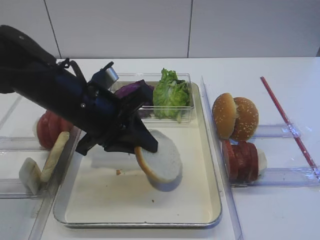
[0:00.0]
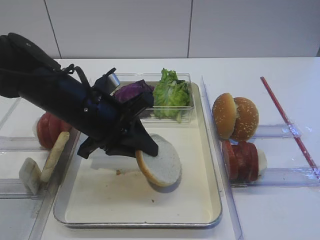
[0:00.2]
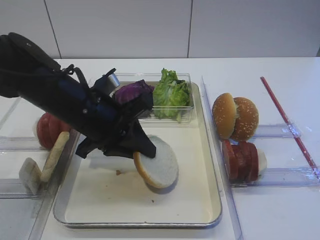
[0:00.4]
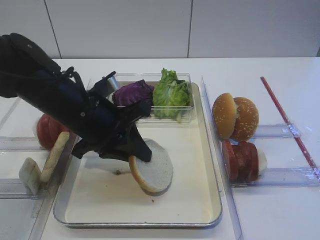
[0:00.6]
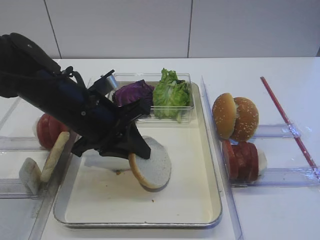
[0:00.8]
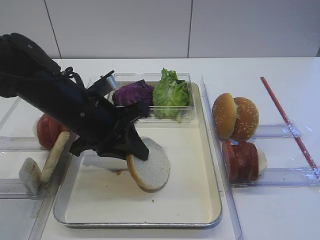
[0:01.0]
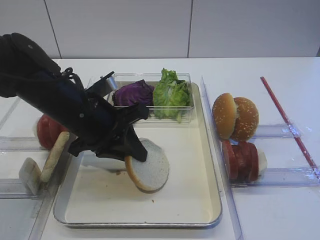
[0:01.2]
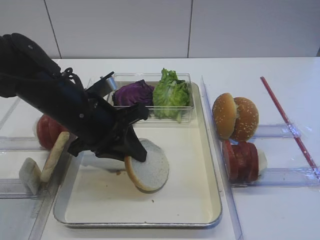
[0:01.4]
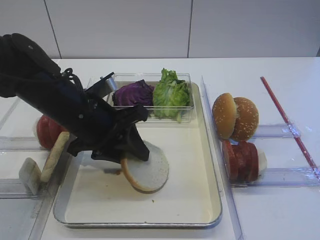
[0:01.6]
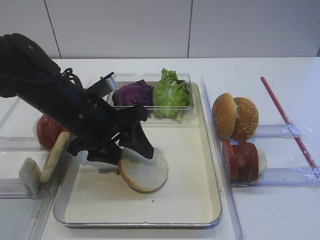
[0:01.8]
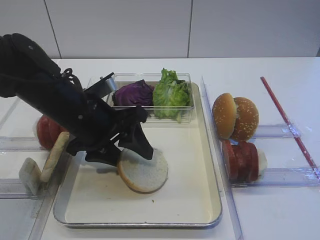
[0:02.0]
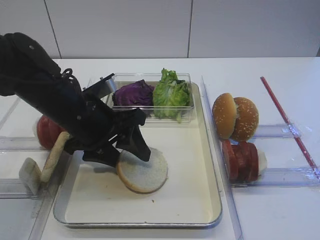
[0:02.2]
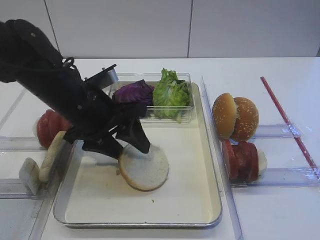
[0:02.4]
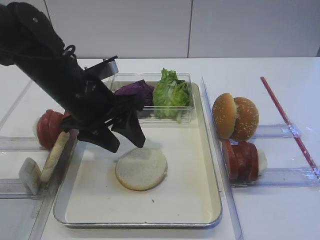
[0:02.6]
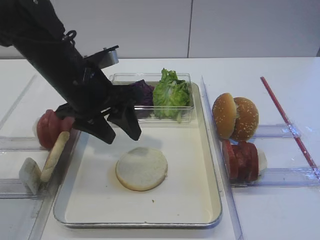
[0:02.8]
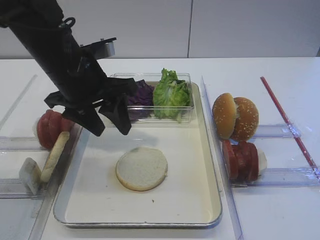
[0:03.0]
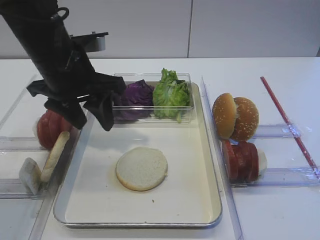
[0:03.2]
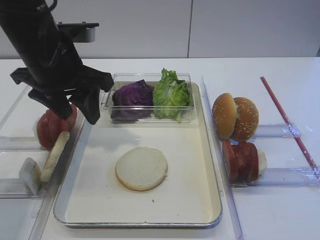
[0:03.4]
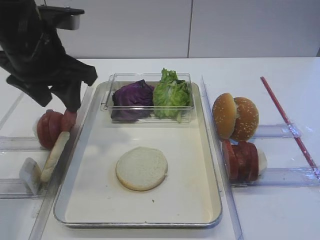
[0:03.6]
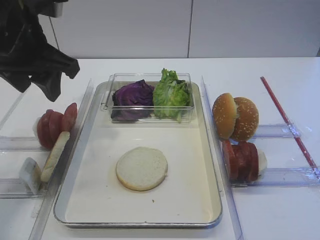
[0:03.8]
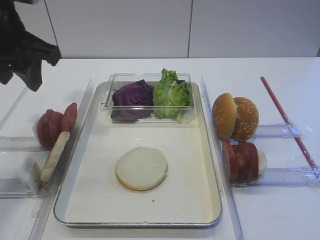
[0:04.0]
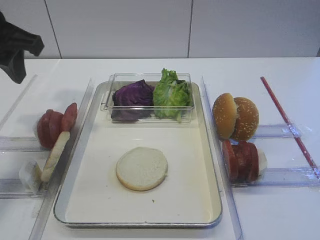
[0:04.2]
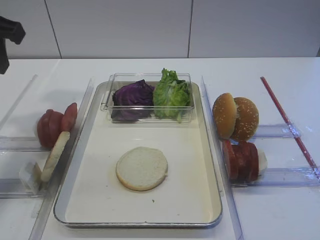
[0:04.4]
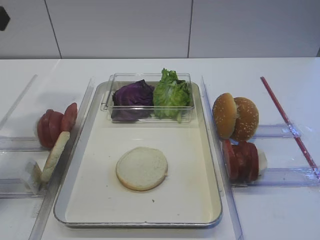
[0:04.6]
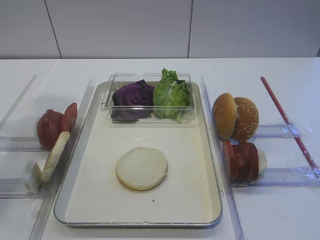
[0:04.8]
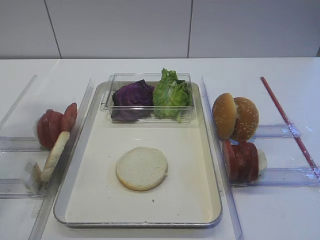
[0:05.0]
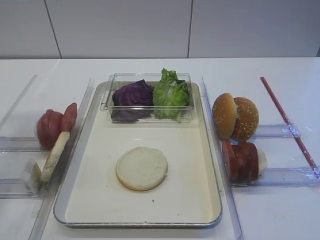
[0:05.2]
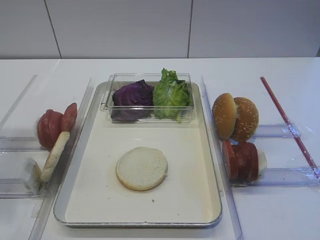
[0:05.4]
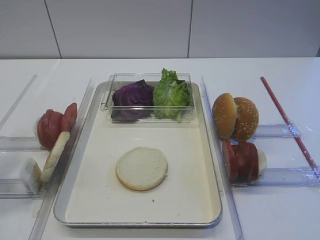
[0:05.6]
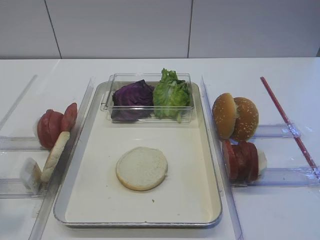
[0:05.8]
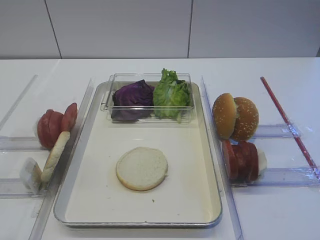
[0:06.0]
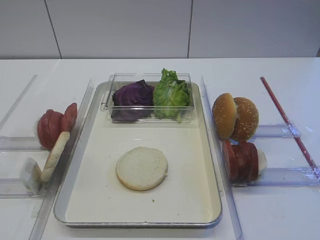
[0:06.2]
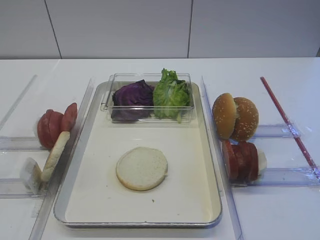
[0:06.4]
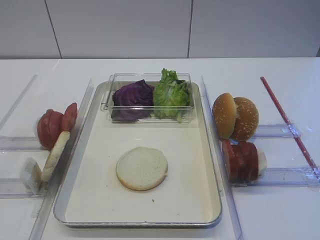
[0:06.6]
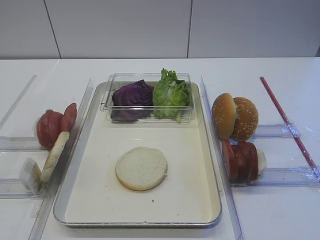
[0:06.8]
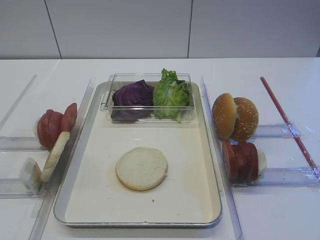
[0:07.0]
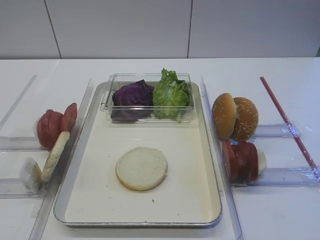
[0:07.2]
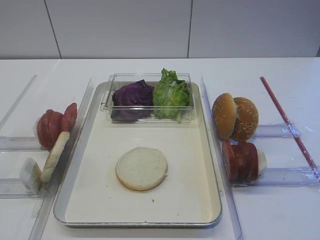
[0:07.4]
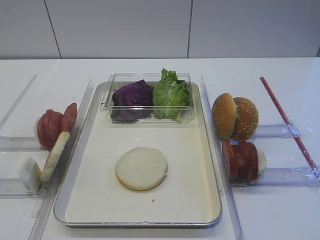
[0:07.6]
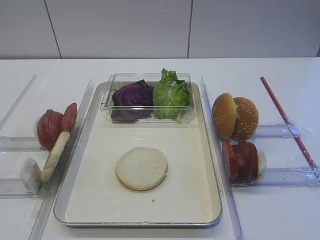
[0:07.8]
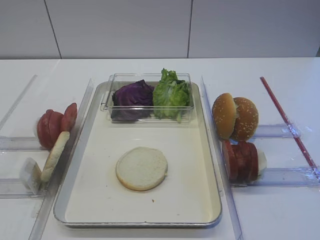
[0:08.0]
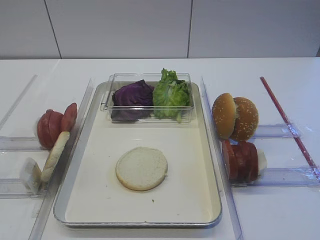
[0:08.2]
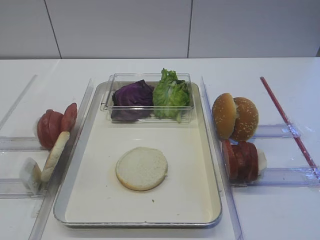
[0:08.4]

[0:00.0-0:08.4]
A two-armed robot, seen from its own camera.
Step, 0:00.0 to 0:02.8: Place the bread slice on the tray with the left gripper.
0:00.0 to 0:01.4: The grippers make only small movements.
0:01.4 to 0:02.8: The left gripper opens up.
0:02.8 to 0:04.2: The left gripper goes approximately 15 cm upward and to the left.
0:04.2 to 0:05.6: The left gripper travels backward by roughly 20 cm.
0:05.6 to 0:07.0: The left gripper moves downward and backward, roughly 15 cm.
0:07.0 to 0:08.4: Both grippers stay put.

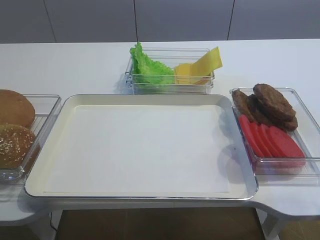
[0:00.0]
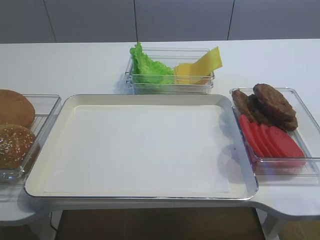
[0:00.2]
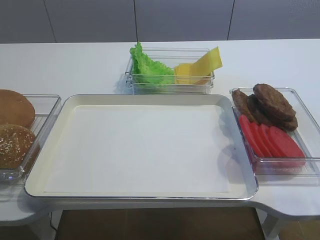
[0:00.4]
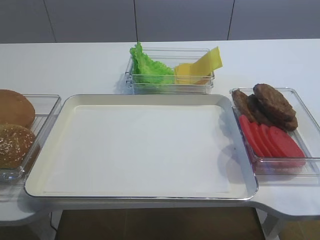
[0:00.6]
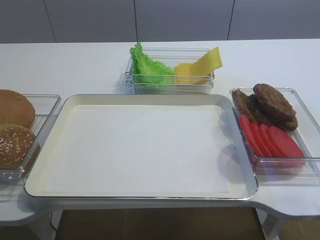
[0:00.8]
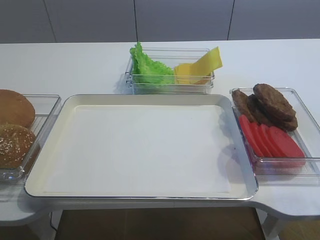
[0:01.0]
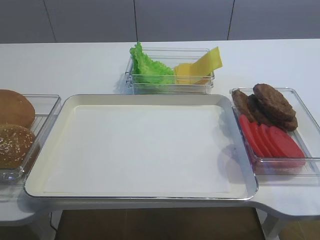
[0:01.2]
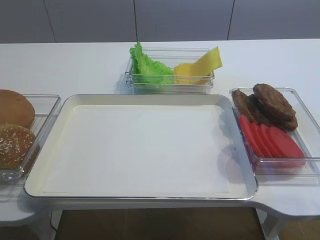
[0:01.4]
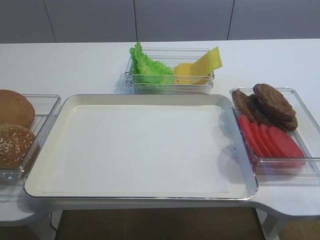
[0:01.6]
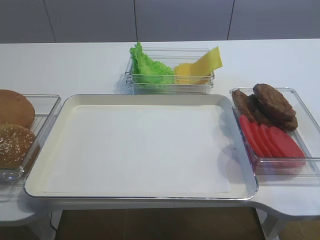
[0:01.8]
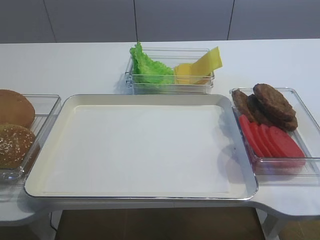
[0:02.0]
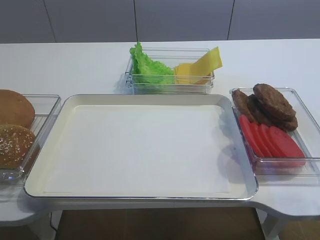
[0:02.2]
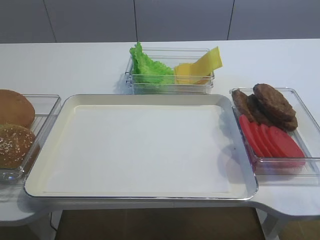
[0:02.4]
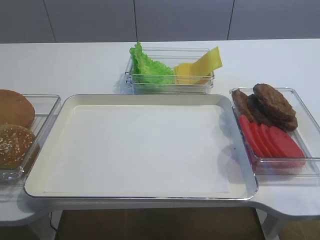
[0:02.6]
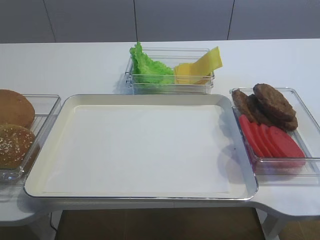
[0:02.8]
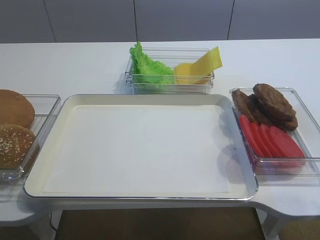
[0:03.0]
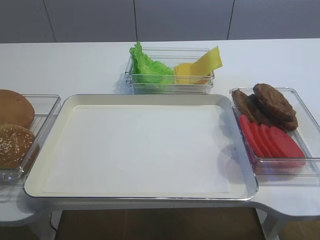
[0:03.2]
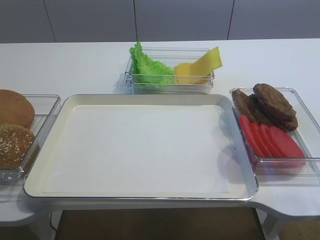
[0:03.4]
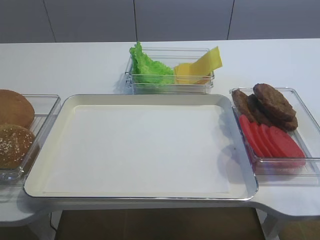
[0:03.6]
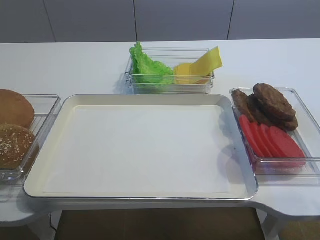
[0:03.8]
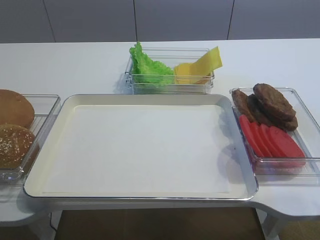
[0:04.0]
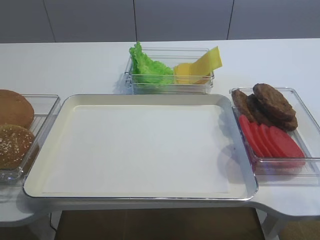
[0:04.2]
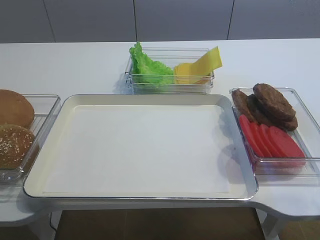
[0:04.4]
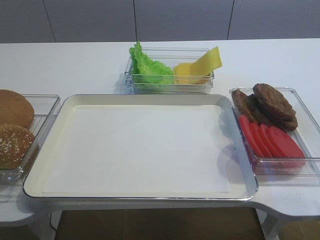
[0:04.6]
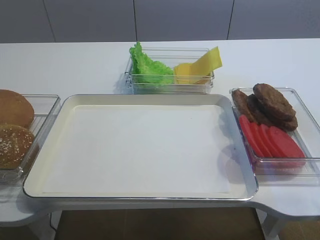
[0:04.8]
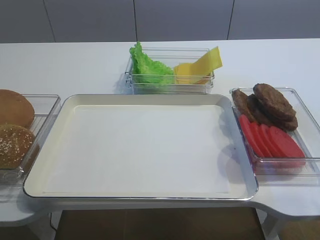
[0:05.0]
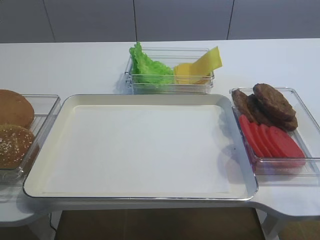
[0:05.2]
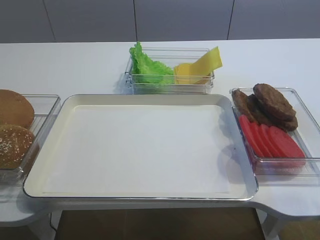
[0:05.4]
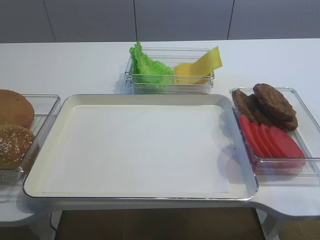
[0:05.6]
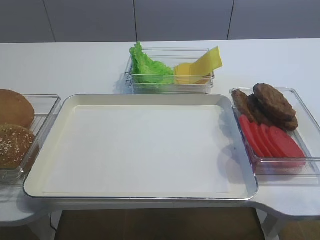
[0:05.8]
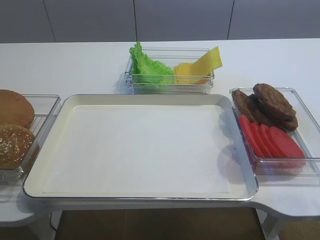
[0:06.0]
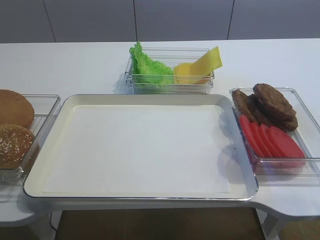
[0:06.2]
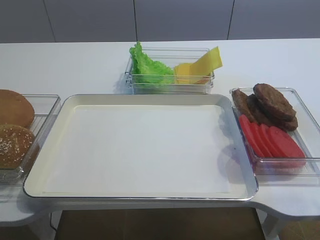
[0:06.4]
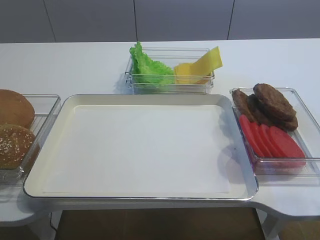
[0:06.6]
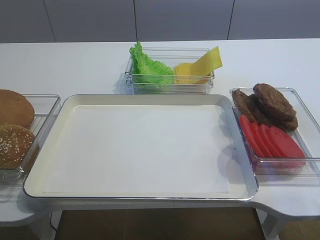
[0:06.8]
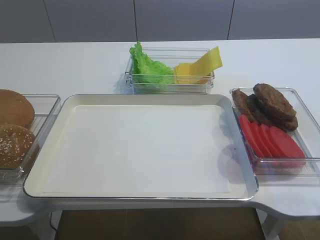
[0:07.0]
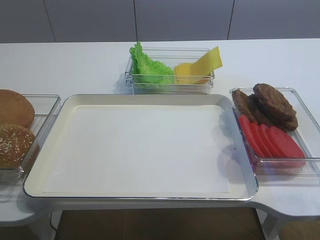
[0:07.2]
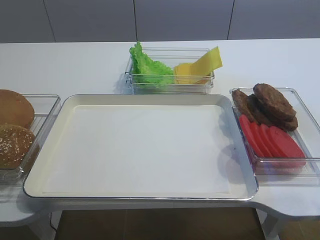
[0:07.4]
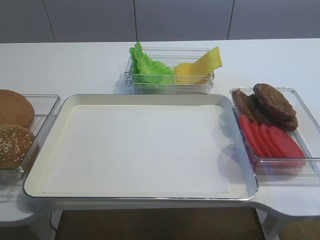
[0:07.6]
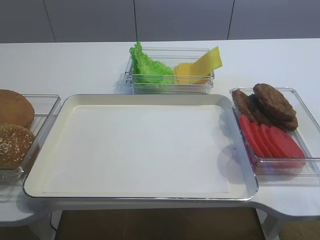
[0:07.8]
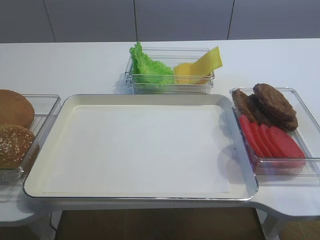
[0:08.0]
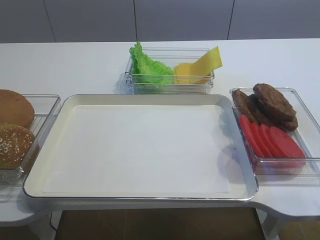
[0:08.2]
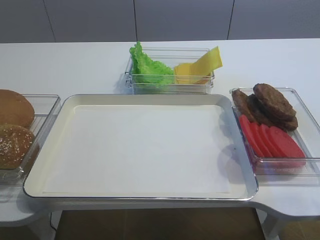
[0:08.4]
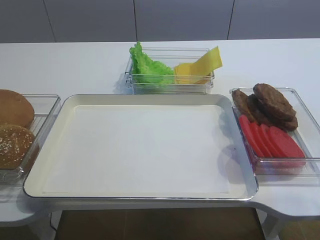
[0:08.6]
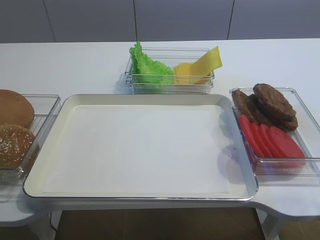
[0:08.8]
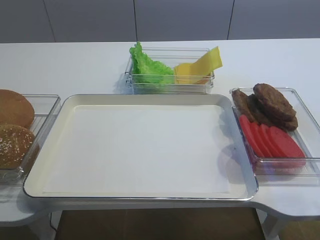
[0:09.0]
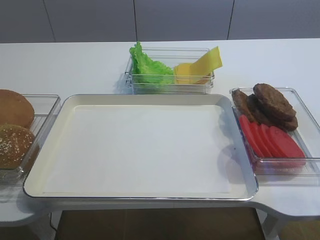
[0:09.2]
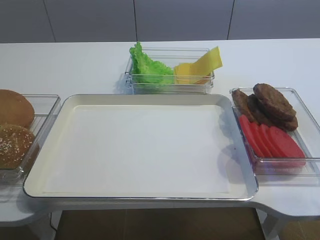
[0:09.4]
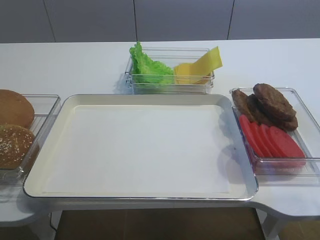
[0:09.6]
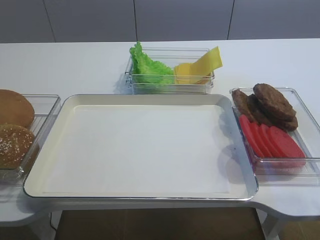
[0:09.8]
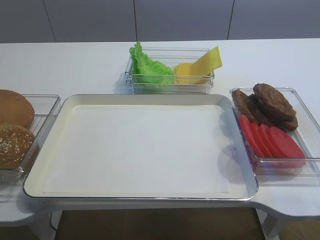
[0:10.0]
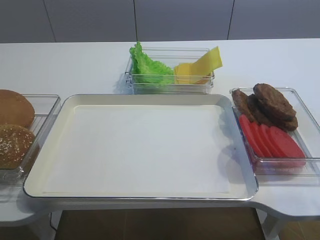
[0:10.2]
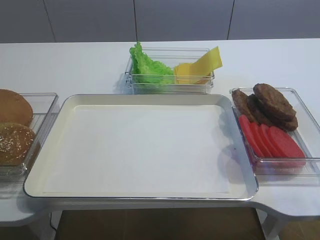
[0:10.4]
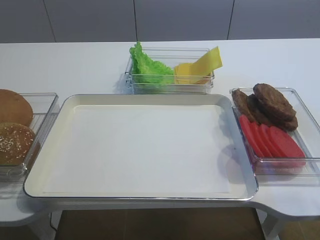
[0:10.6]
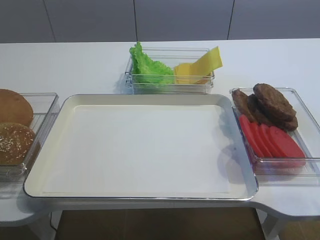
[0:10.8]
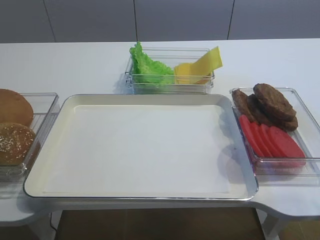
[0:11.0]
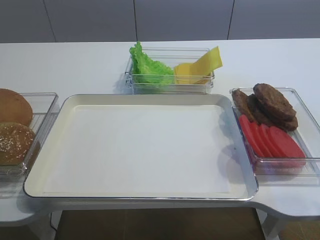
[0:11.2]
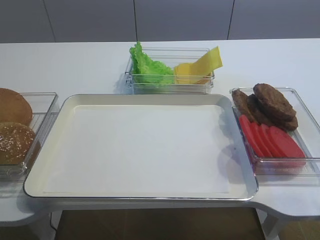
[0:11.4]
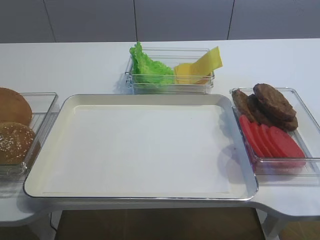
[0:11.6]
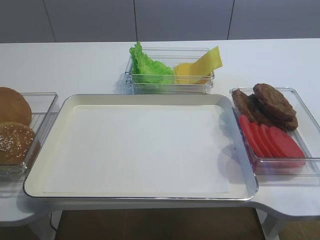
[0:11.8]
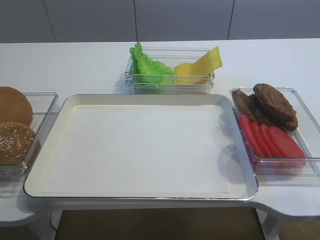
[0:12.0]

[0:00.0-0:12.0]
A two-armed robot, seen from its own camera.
0:06.0 to 0:07.6: Neither gripper changes place.

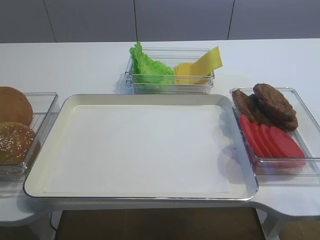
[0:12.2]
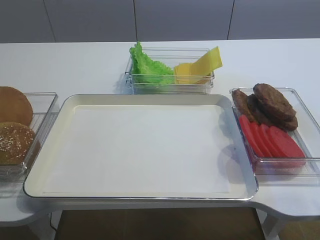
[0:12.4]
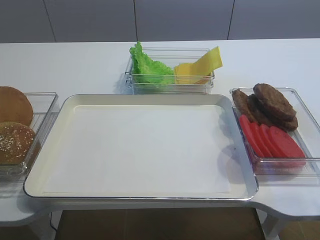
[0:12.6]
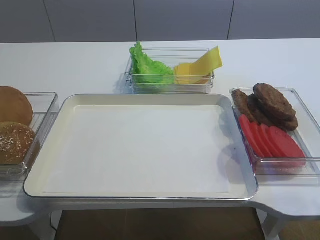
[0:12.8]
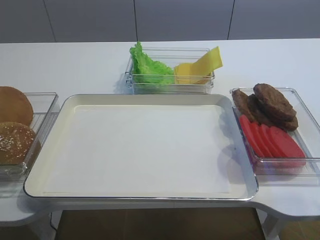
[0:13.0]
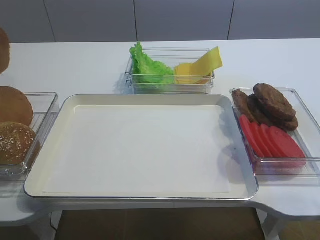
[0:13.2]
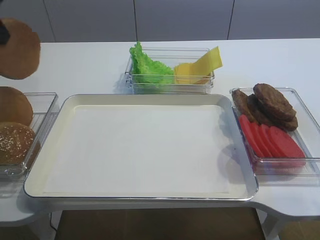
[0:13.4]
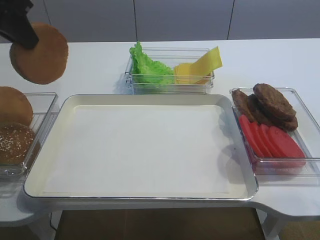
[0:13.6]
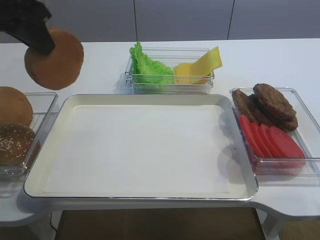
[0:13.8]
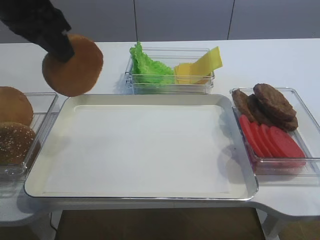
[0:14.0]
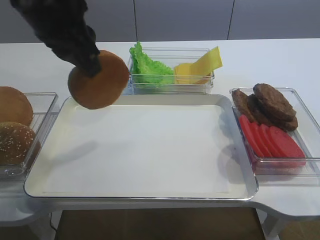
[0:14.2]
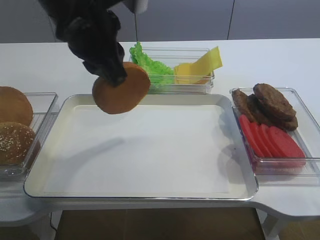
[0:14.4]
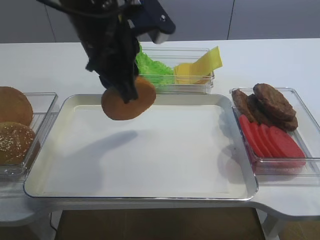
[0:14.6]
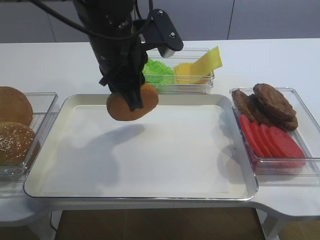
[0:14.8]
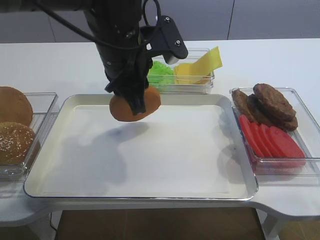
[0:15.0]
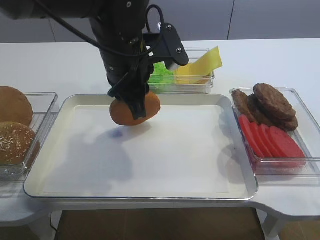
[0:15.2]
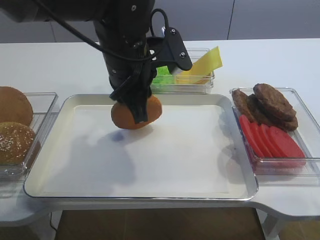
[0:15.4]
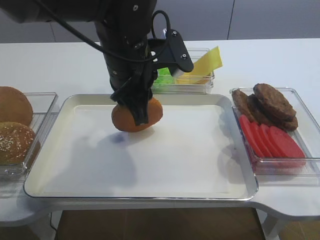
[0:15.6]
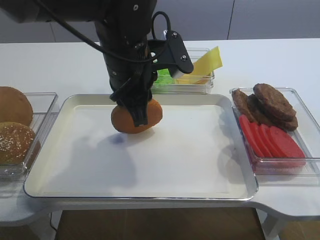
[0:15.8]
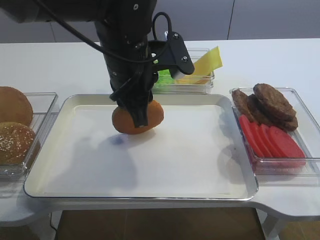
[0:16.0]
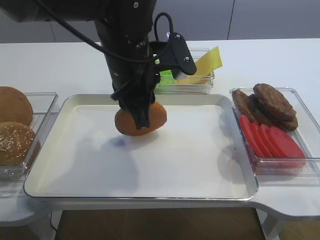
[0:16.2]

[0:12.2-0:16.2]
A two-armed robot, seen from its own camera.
0:12.2 to 0:13.6: The left gripper moves to the right and upward, approximately 15 cm.
0:13.6 to 0:14.8: The left gripper is displaced to the right and downward by about 20 cm.
0:14.8 to 0:16.2: The grippers stay close to where they were, moving slightly.
